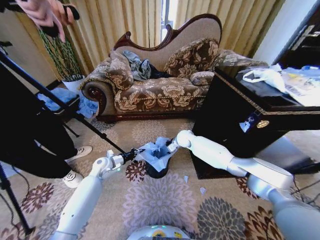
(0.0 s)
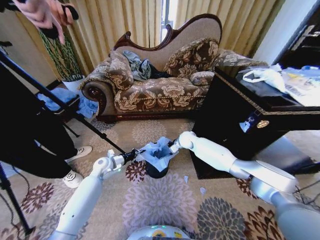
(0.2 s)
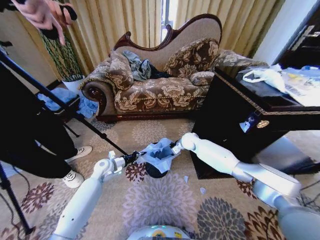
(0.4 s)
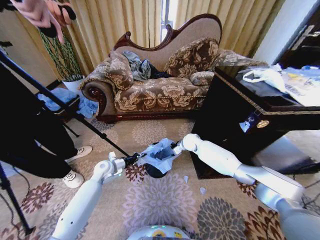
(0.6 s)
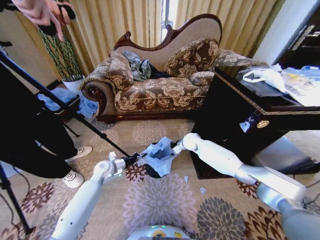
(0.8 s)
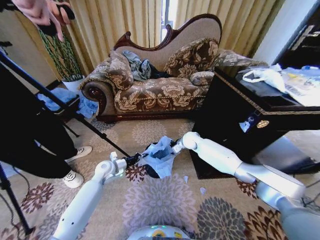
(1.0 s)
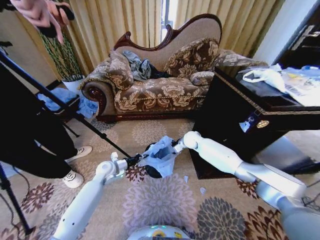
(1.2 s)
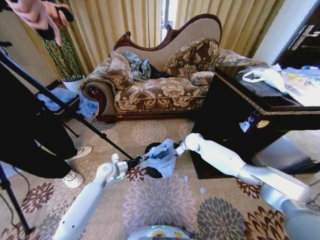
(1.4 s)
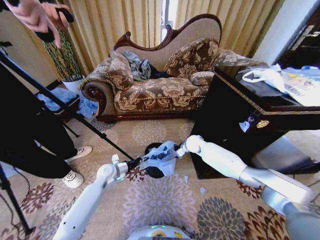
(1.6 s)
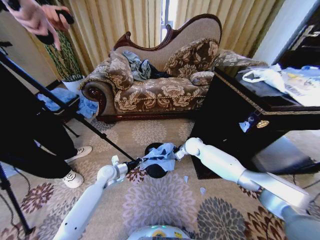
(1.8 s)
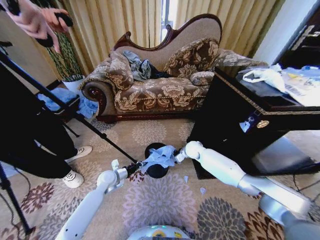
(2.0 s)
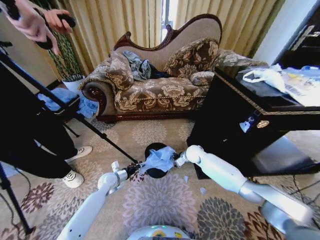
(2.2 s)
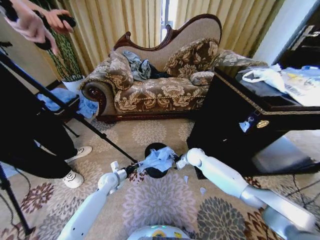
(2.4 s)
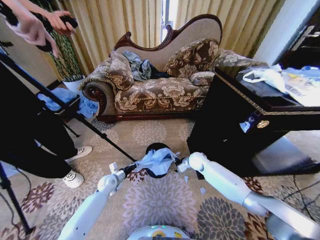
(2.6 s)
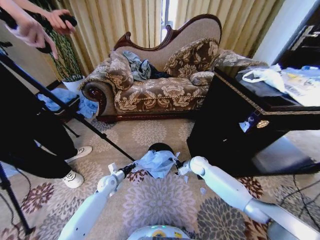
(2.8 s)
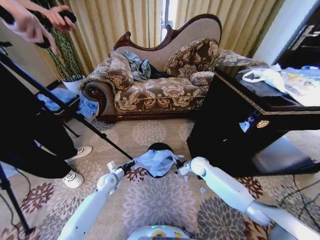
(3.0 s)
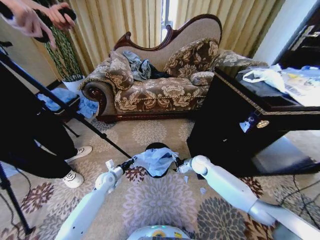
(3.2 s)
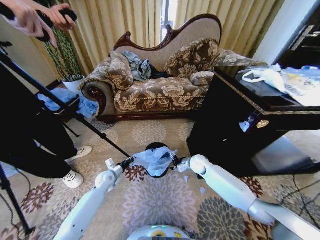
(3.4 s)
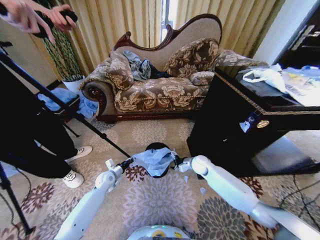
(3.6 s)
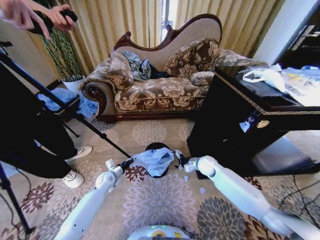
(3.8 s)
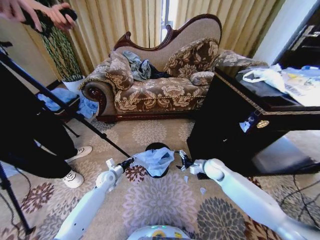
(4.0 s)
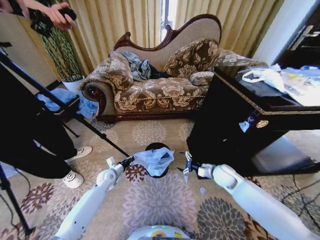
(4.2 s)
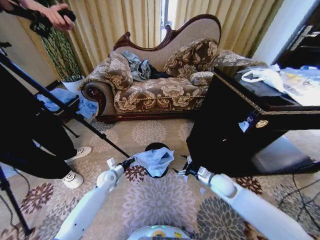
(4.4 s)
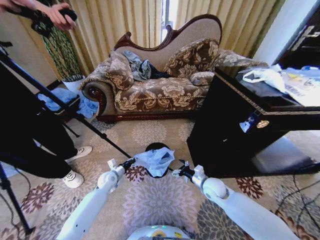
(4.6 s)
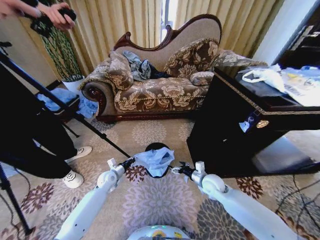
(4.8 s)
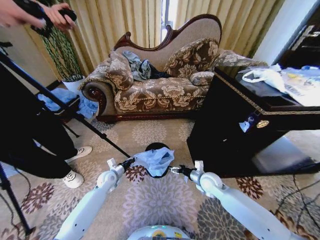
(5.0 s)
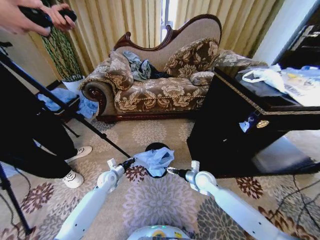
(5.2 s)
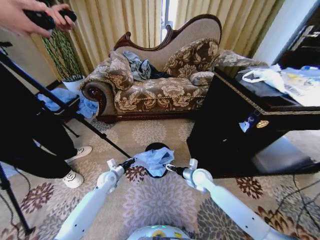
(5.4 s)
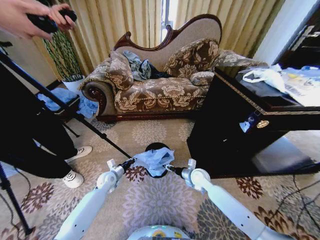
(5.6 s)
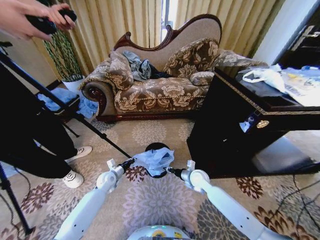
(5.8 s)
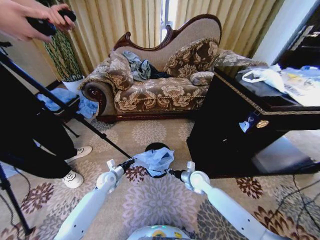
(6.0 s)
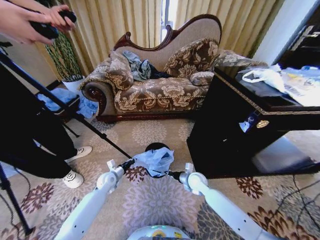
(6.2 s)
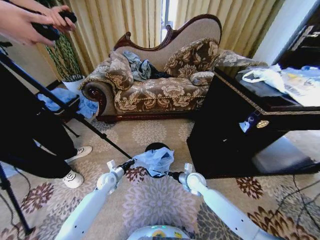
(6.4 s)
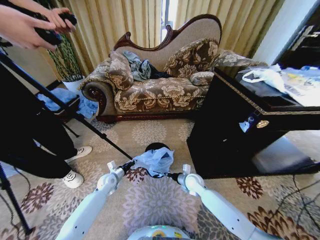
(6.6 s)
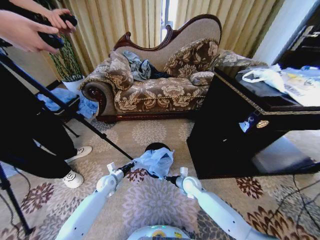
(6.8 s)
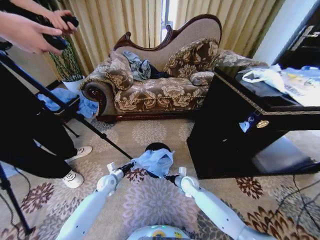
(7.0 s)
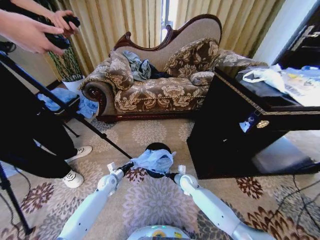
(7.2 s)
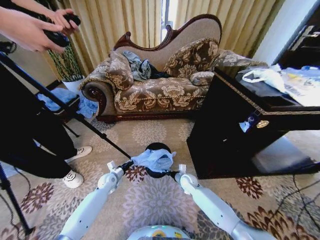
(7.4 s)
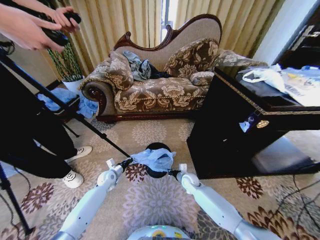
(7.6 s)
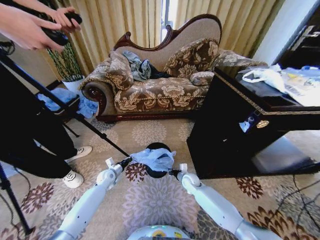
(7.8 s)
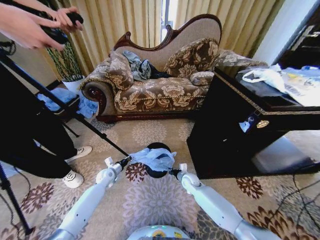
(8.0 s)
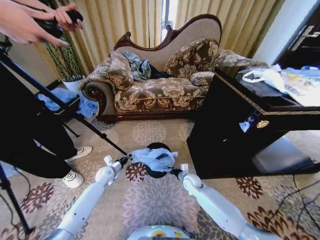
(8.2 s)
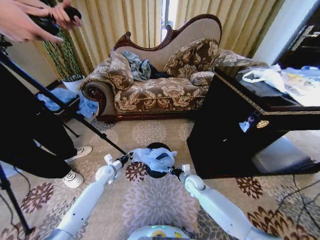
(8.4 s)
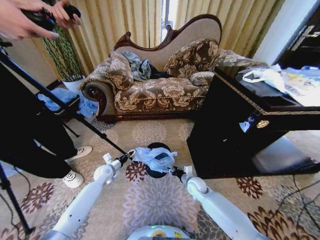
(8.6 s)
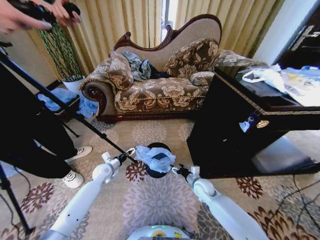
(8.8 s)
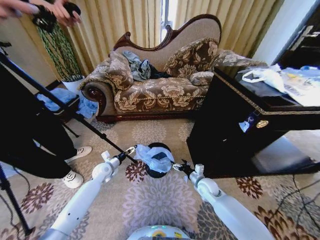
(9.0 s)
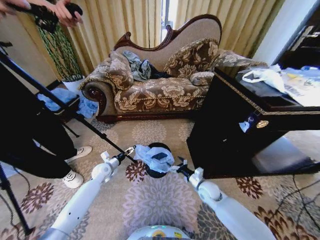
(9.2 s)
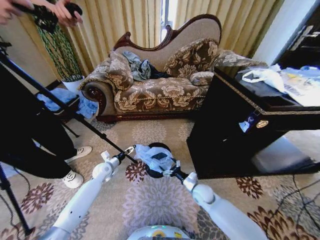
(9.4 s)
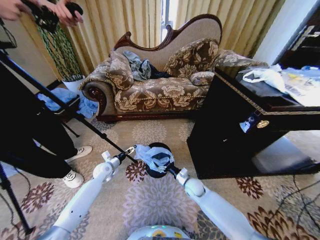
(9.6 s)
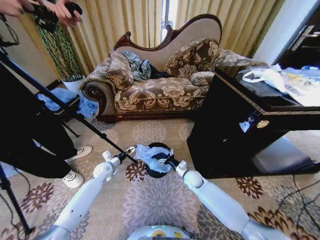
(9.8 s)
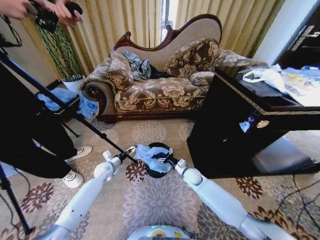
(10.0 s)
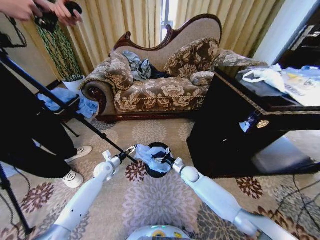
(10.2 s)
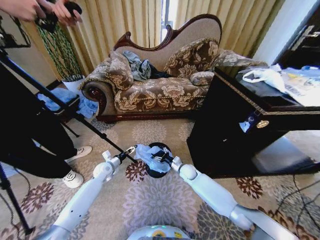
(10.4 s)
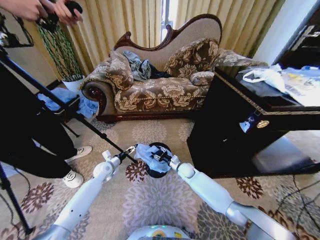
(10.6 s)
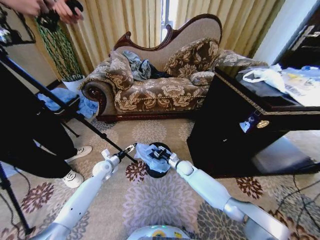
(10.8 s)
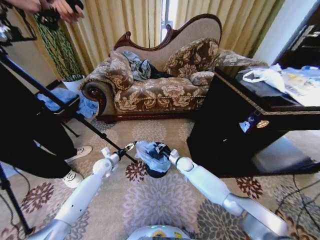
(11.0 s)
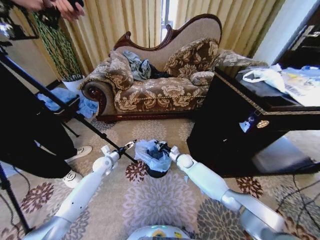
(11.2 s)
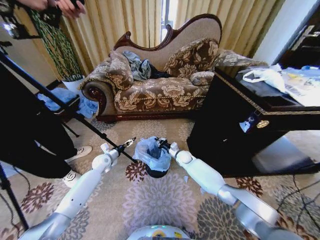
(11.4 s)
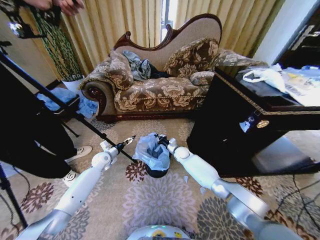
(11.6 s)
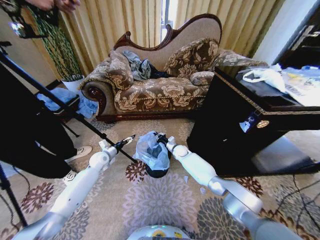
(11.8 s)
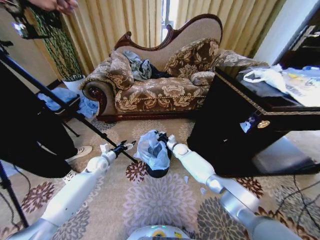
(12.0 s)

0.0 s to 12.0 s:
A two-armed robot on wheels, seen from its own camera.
Task of the whole recording: Place a garbage bag over the trash bin.
0.0 to 1.6 s: The right gripper moves to the right, about 5 cm.
1.6 to 3.0 s: The right gripper moves downward and backward, some 10 cm; the left gripper heads downward, covering approximately 10 cm.
3.0 to 4.4 s: The right gripper goes roughly 15 cm backward and to the right.
4.4 to 6.0 s: The right gripper is displaced to the left by approximately 10 cm, and closes.
6.0 to 7.6 s: The right gripper moves downward, about 5 cm.
7.6 to 9.0 s: The right gripper is displaced to the right by approximately 5 cm, and opens up. Meanwhile the left gripper moves upward, roughly 5 cm, and opens its fingers.
9.0 to 10.4 s: The right gripper is displaced forward and to the left by approximately 10 cm.
10.4 to 12.0 s: The right gripper heads forward, covering approximately 15 cm, and closes.

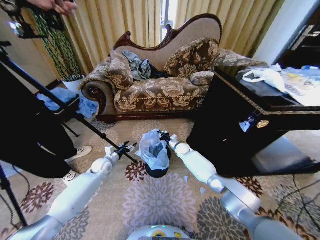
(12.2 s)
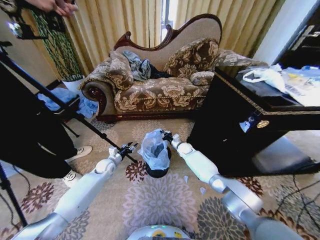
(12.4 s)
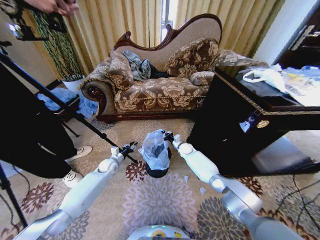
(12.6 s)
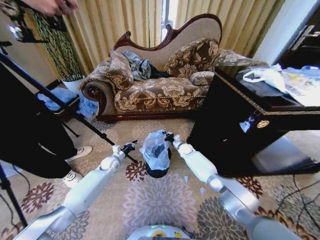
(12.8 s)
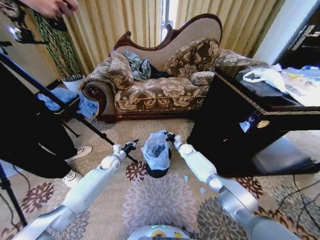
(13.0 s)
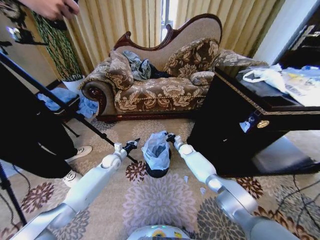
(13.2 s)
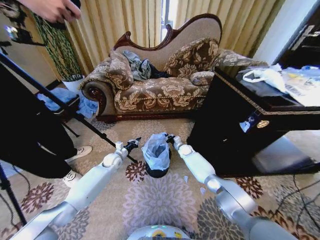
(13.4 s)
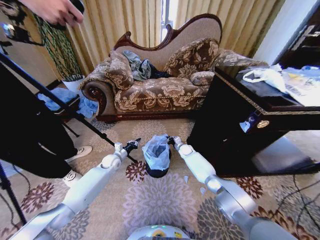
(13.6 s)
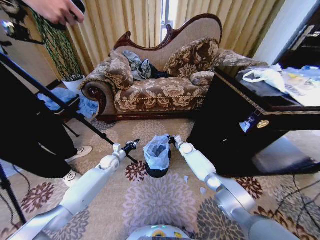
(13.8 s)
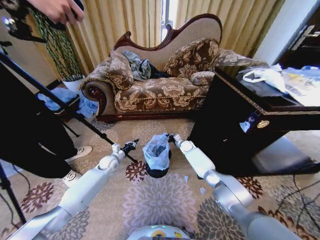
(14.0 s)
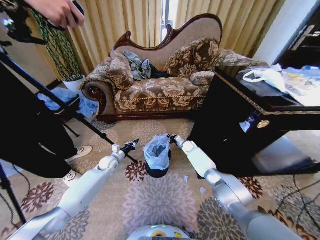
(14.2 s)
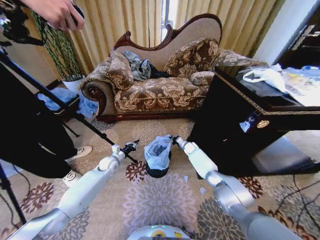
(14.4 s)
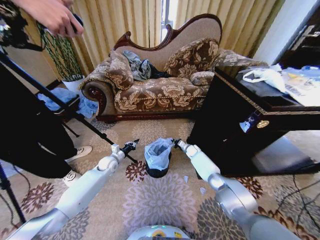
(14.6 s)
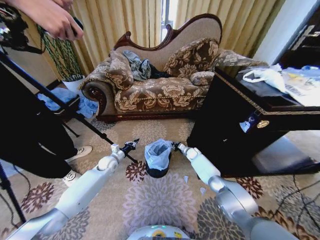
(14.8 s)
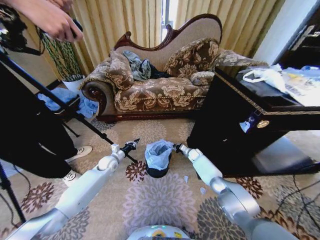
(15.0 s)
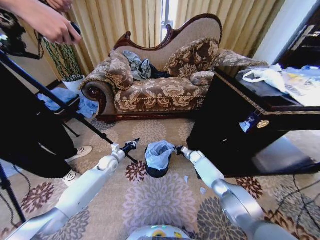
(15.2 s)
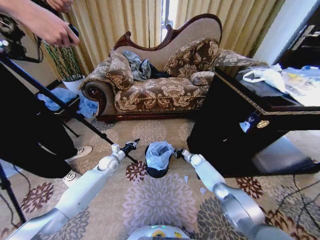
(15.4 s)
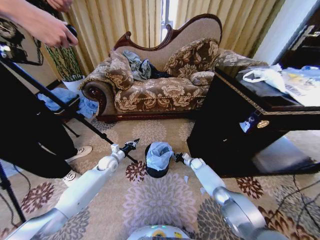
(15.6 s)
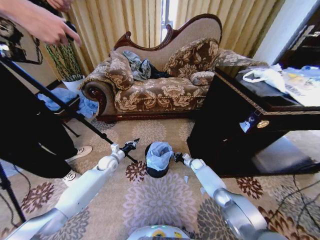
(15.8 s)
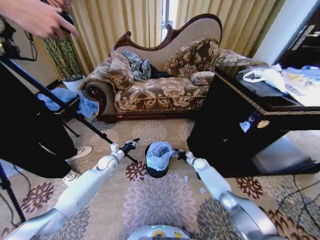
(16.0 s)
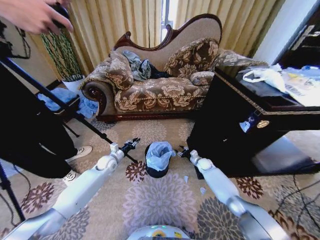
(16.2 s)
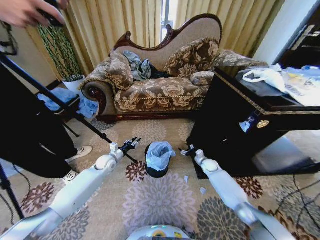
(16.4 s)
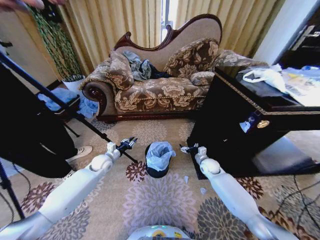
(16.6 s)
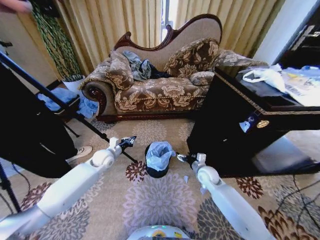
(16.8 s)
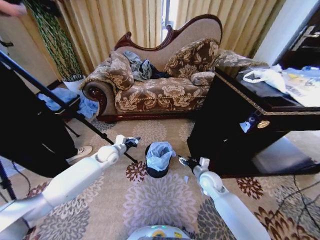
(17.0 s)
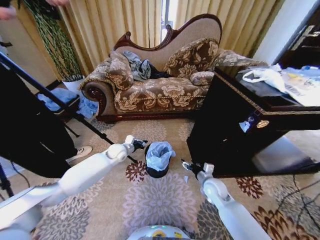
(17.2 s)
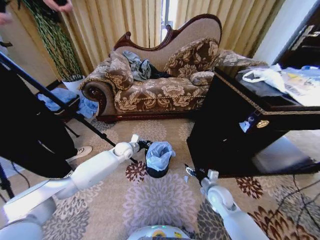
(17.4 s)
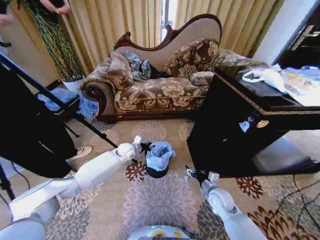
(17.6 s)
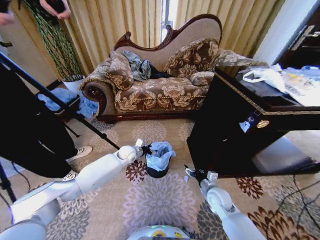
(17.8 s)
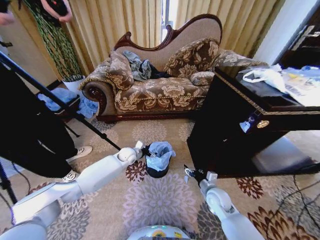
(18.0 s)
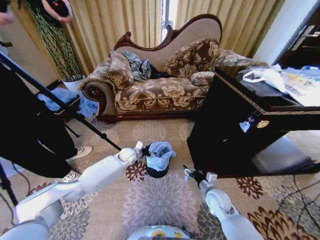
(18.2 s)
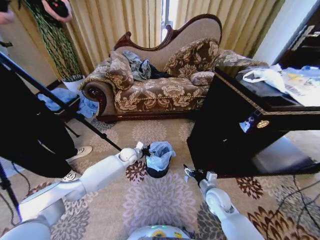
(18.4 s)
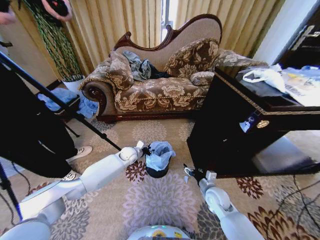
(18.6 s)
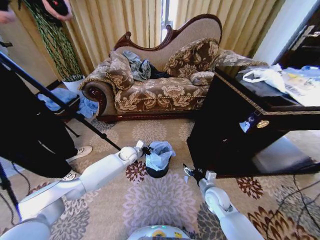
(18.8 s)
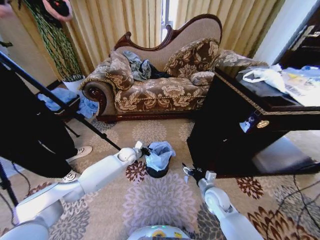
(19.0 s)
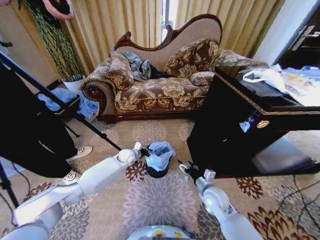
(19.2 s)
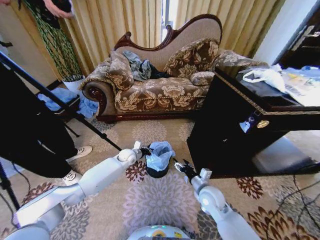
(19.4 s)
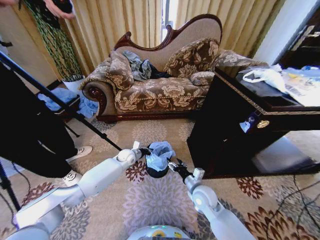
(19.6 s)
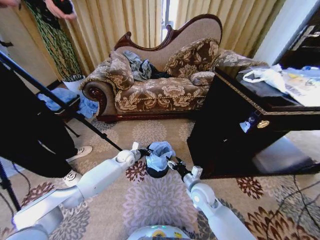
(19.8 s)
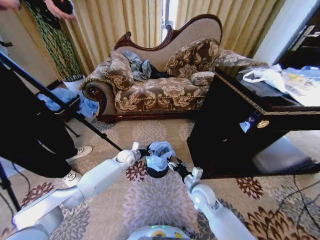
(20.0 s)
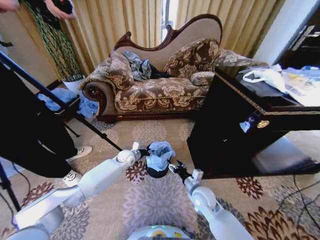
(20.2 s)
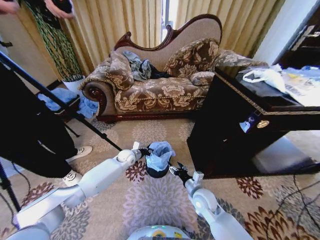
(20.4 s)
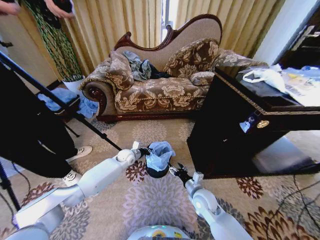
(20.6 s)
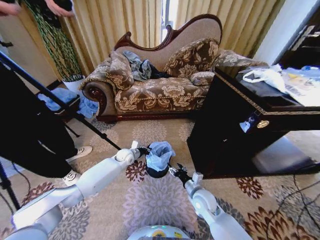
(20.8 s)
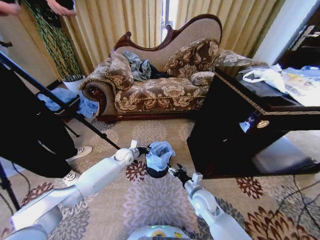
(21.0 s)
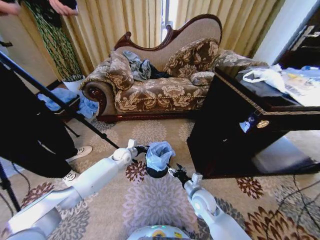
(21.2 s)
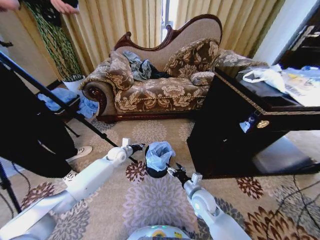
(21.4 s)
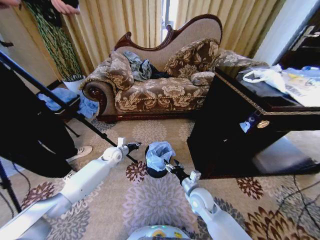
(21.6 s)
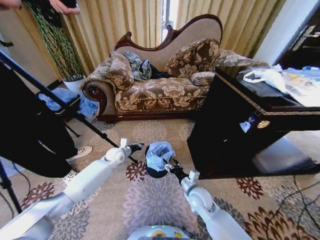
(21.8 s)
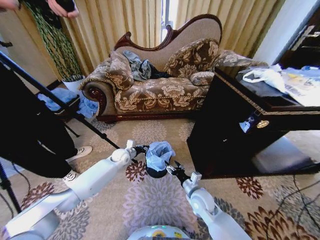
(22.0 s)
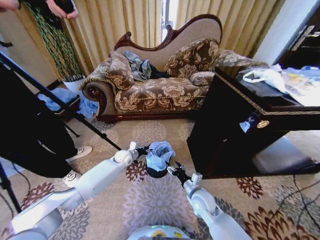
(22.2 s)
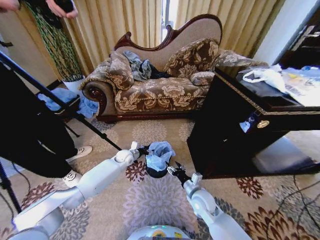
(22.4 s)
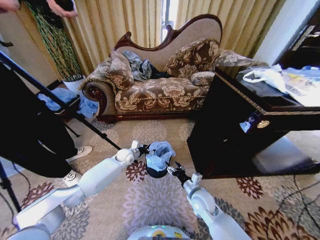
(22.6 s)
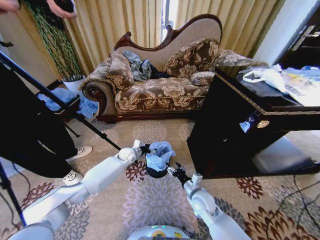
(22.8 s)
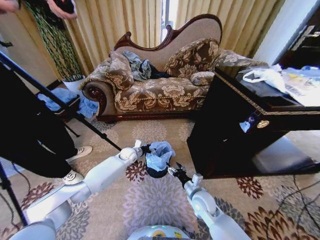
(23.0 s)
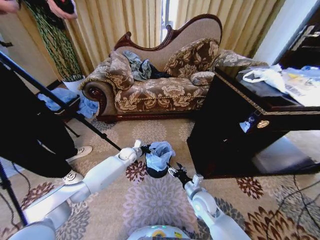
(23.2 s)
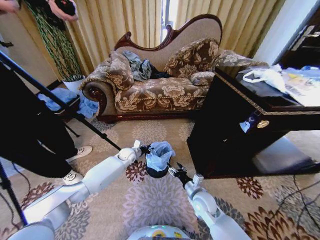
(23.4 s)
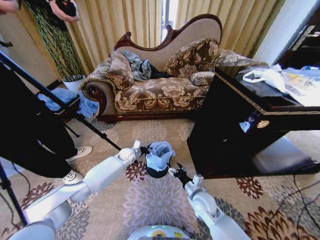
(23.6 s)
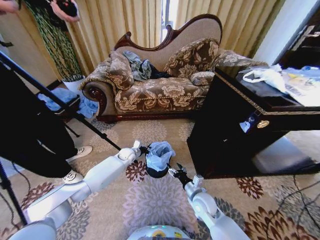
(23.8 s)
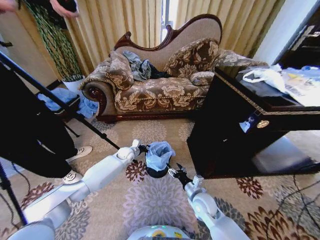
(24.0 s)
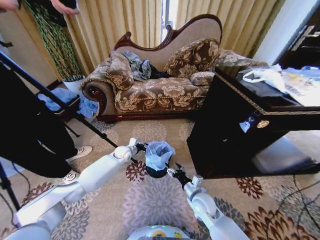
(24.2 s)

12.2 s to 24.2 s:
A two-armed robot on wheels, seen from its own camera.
Task of the whole recording: Place a garbage bag over the trash bin.
12.2 to 13.8 s: The left gripper closes.
13.8 to 15.2 s: The right gripper goes about 10 cm to the right and downward.
15.2 to 16.6 s: The right gripper moves backward and upward, approximately 15 cm, and opens its fingers.
16.6 to 18.2 s: The right gripper heads backward, covering roughly 15 cm; the left gripper is displaced to the right and forward by approximately 15 cm, and opens its fingers.
18.2 to 19.8 s: The left gripper closes up; the right gripper heads to the left, covering some 10 cm.
19.8 to 21.2 s: The grippers stay close to where they were, moving slightly.
21.2 to 22.6 s: The left gripper opens.
22.6 to 24.2 s: The left gripper closes.
